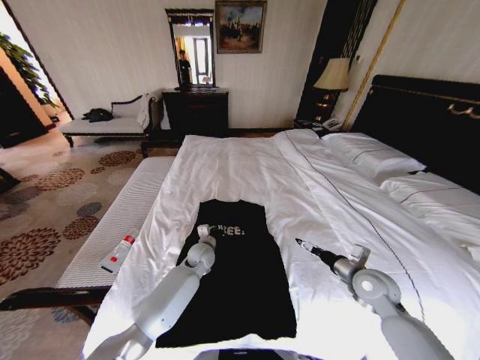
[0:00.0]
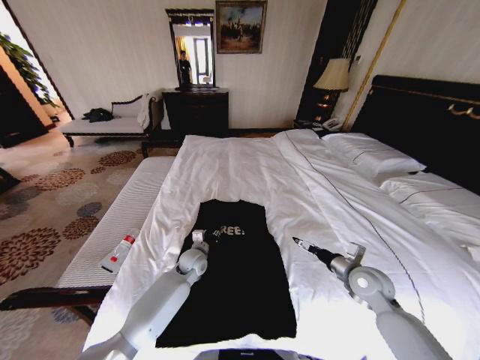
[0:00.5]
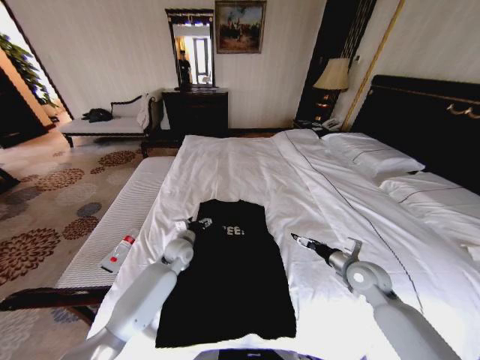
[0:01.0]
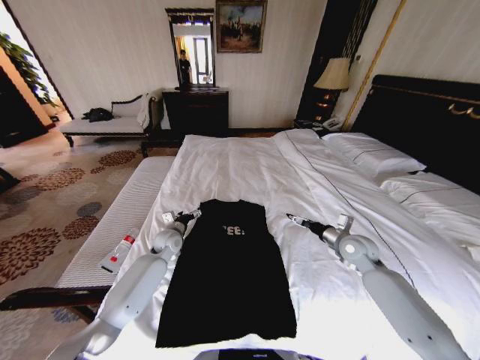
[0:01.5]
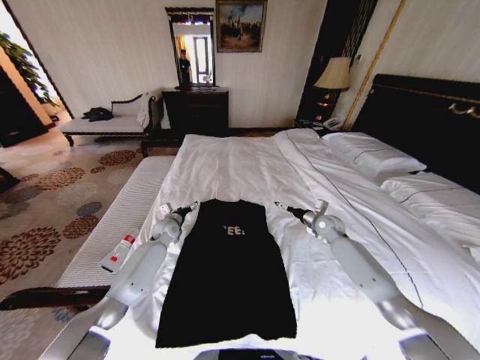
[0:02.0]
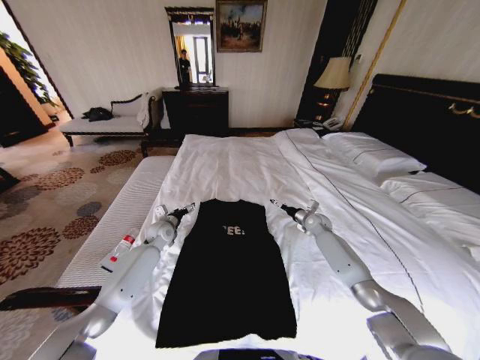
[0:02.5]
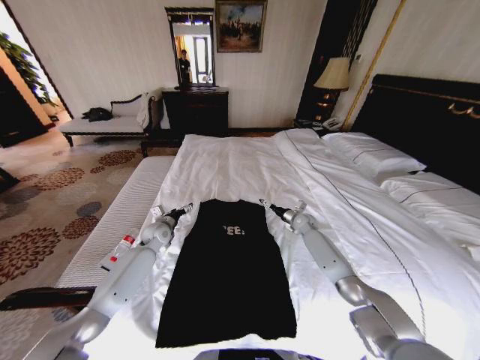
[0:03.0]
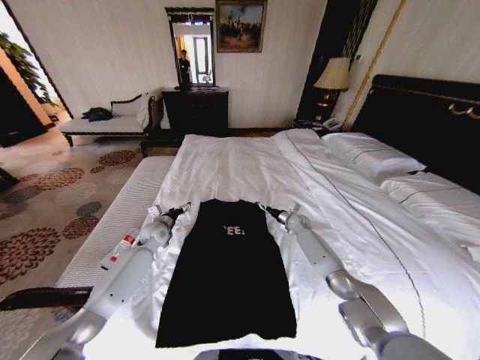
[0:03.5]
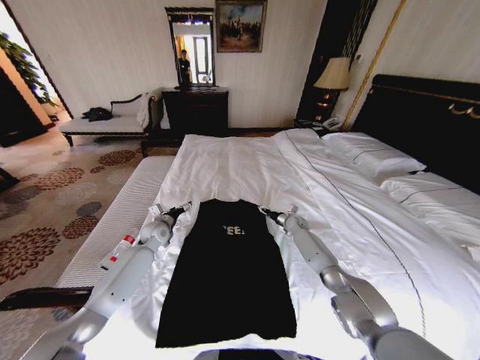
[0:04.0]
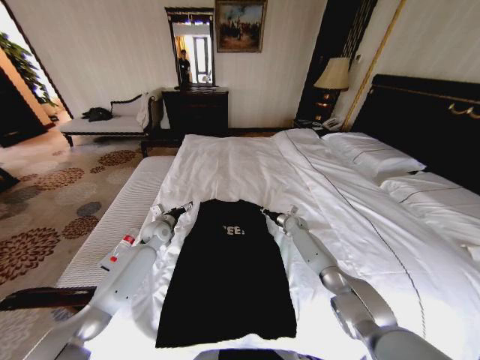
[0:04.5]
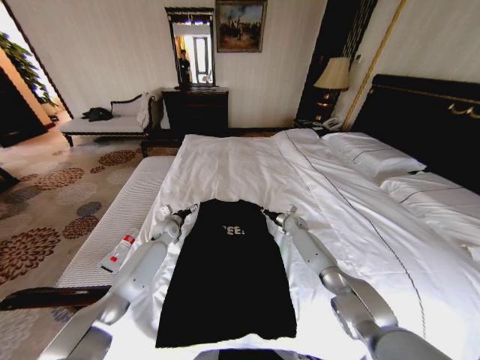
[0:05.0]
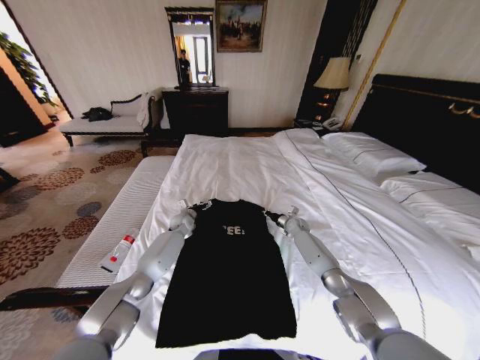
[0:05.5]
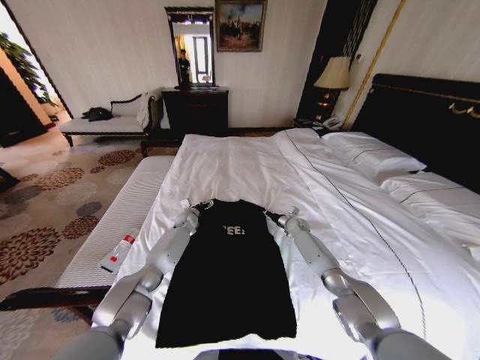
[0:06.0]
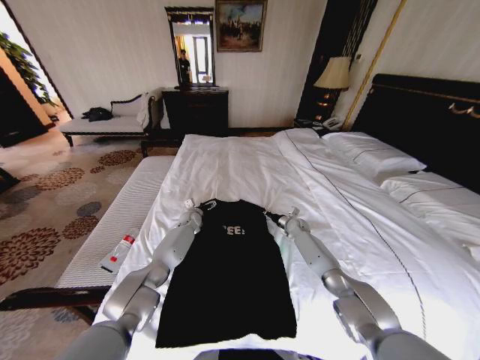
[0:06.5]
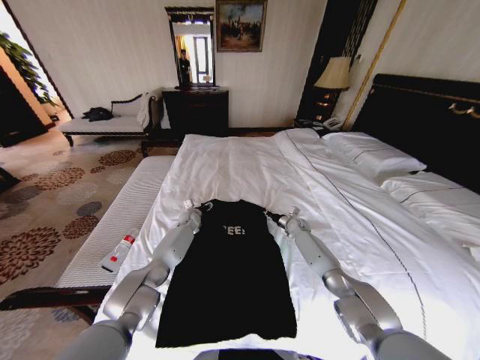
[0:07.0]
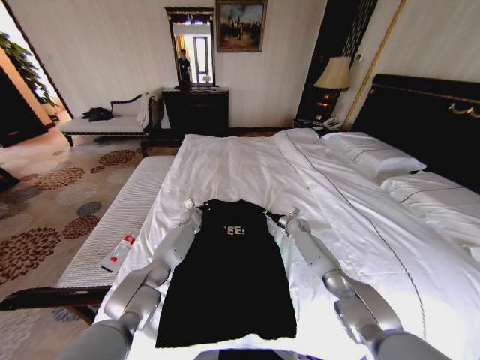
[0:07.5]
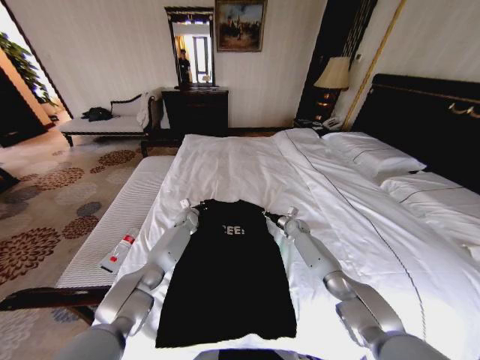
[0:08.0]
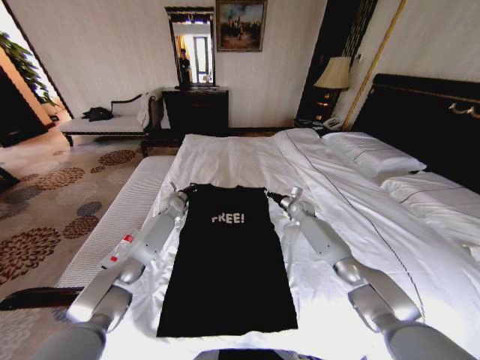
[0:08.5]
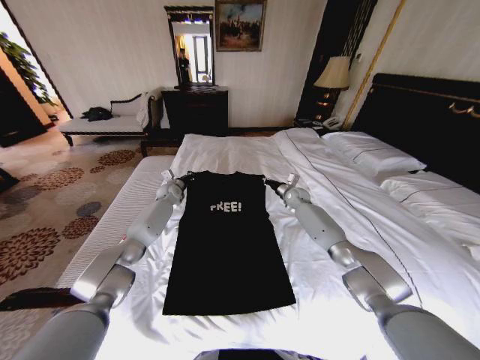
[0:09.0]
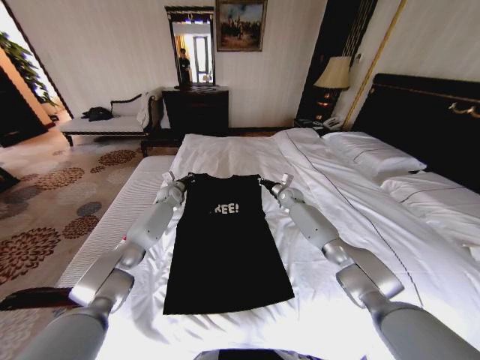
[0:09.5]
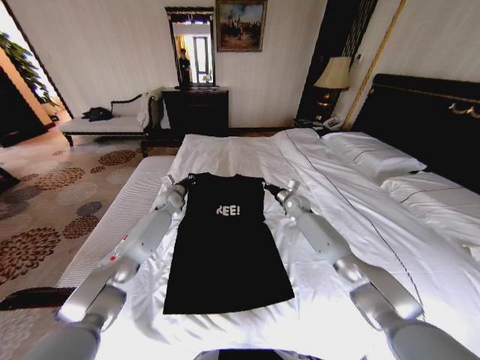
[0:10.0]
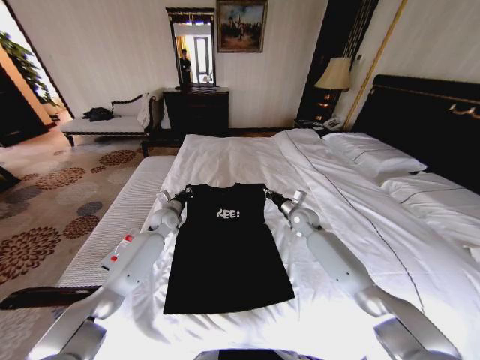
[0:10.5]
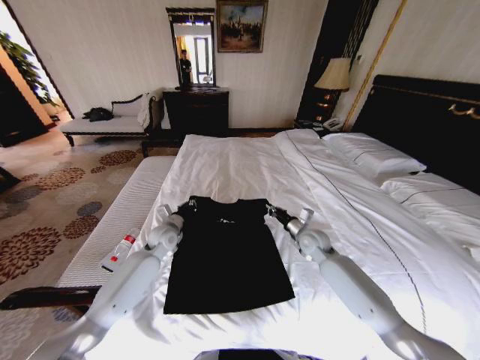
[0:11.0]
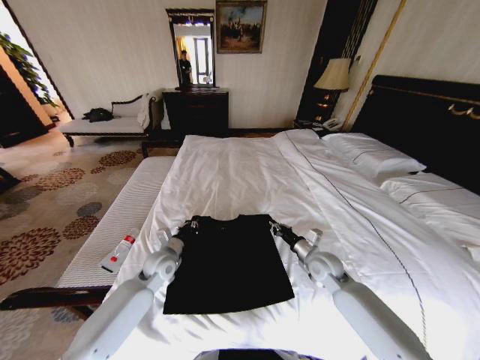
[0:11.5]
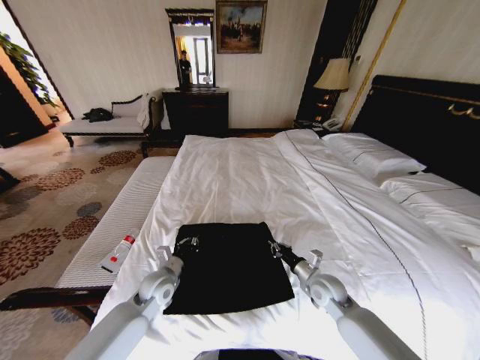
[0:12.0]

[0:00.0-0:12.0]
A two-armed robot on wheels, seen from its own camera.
Task of the whole recording: Fold the clothes on the bed.
0:00.0 to 0:02.0: The right gripper shifts some 20 cm forward. The left gripper is displaced to the left and forward by about 15 cm, and opens.
0:02.0 to 0:04.0: The right gripper shifts about 15 cm downward, forward and to the left.
0:04.0 to 0:06.0: The left gripper shifts some 15 cm forward, to the right and downward; the right gripper closes its fingers.
0:06.0 to 0:08.0: The left gripper closes its fingers.
0:08.0 to 0:10.0: The left gripper is displaced upward and to the left by some 10 cm, while the right gripper heads upward, covering some 10 cm.
0:10.0 to 0:12.0: Both grippers move backward, some 30 cm.

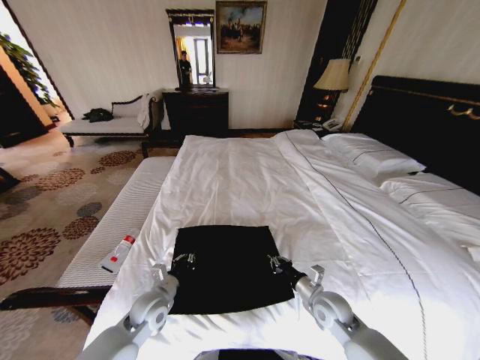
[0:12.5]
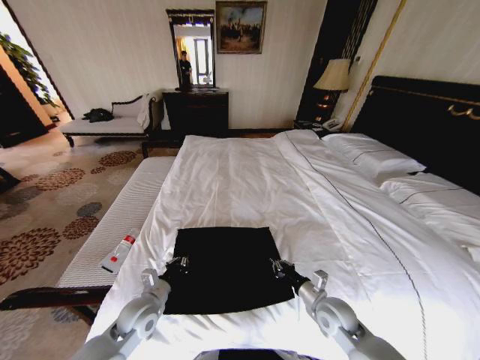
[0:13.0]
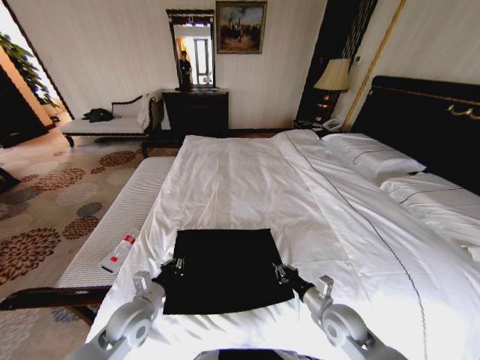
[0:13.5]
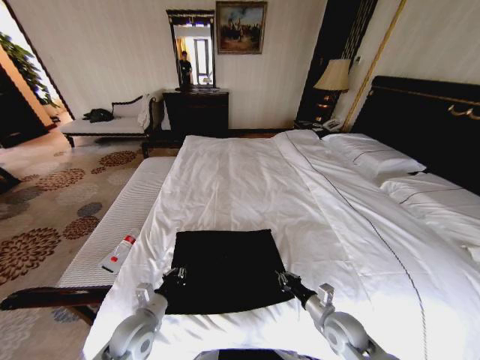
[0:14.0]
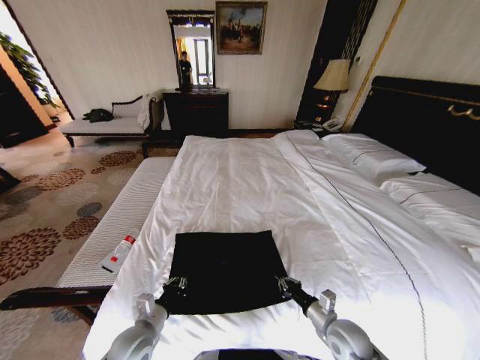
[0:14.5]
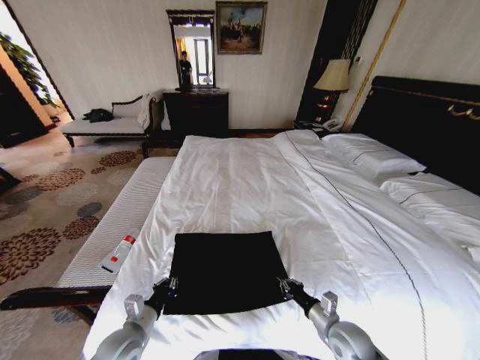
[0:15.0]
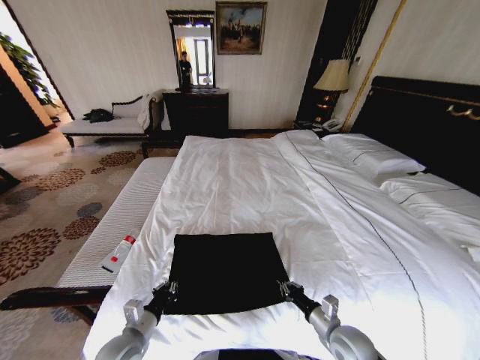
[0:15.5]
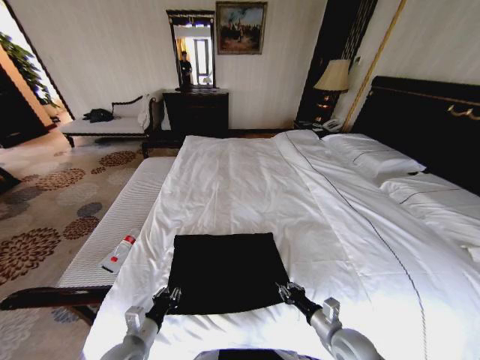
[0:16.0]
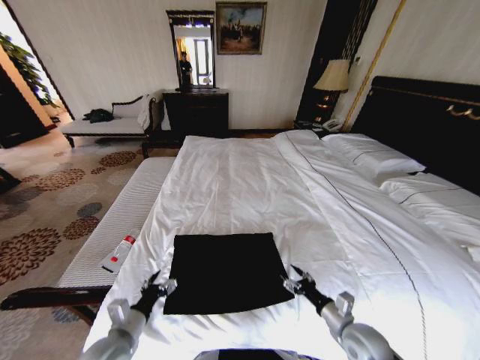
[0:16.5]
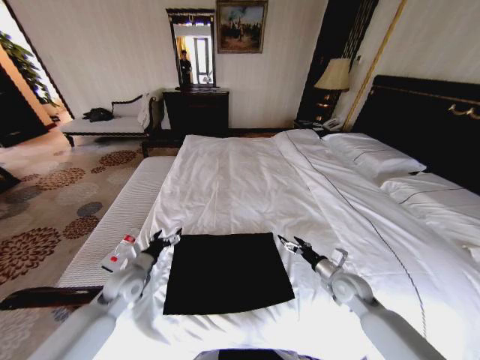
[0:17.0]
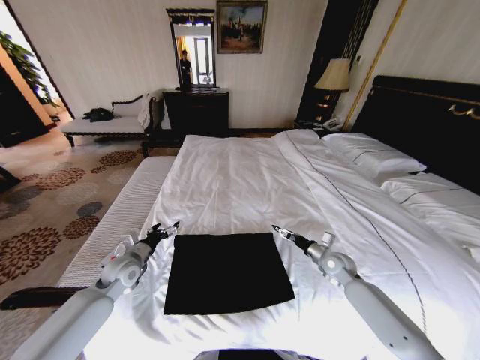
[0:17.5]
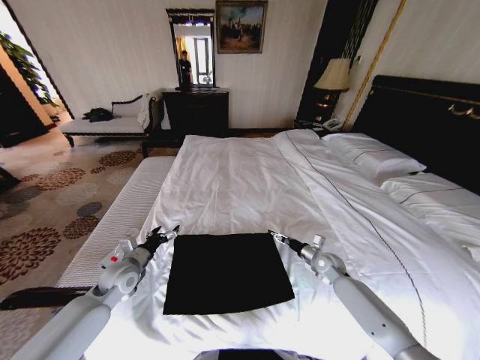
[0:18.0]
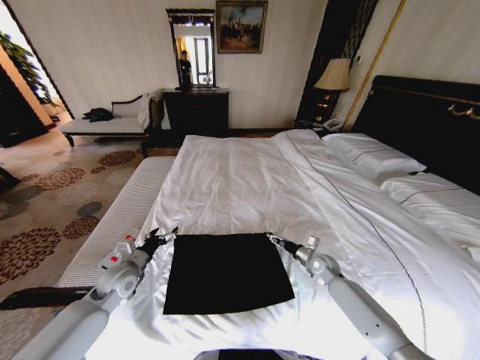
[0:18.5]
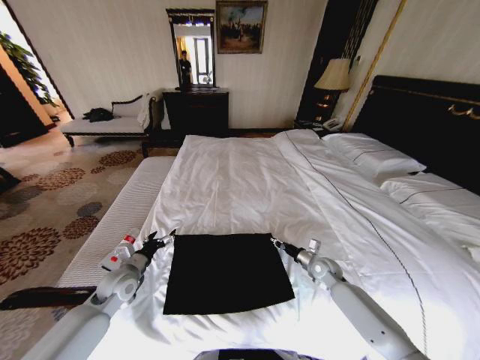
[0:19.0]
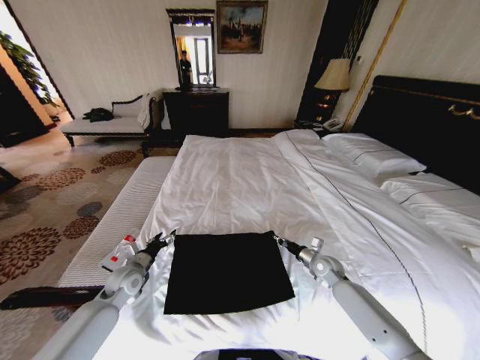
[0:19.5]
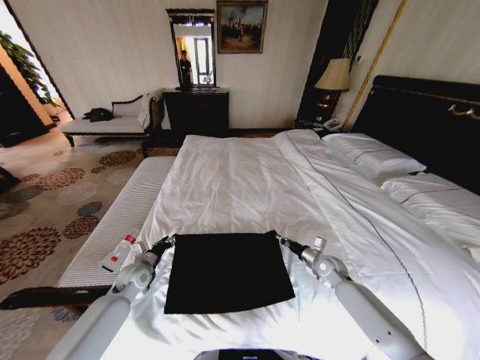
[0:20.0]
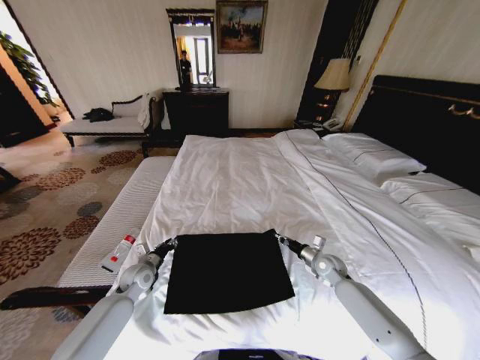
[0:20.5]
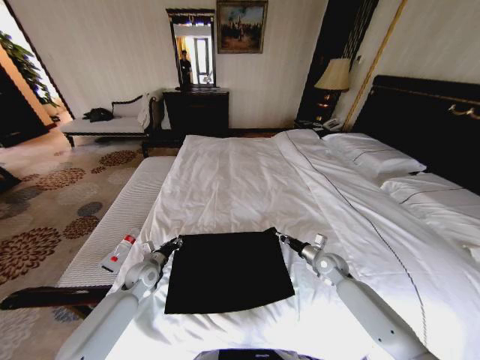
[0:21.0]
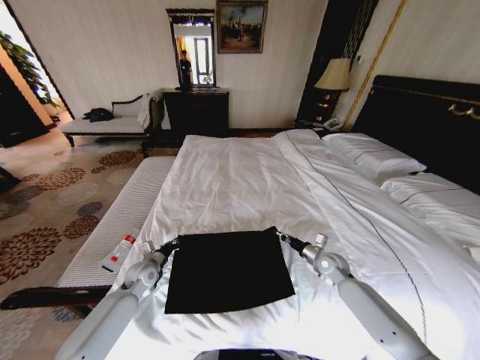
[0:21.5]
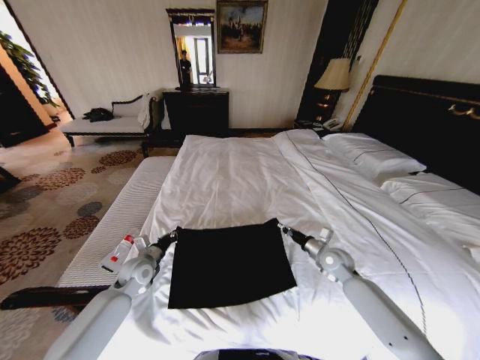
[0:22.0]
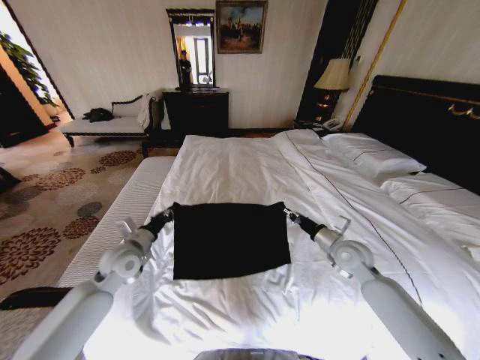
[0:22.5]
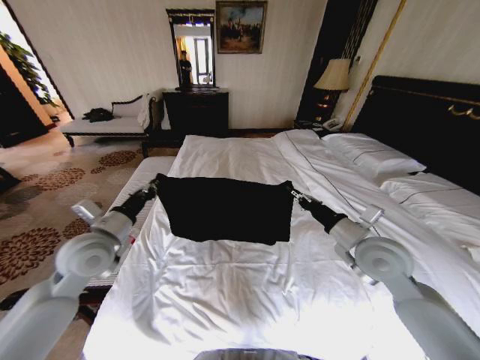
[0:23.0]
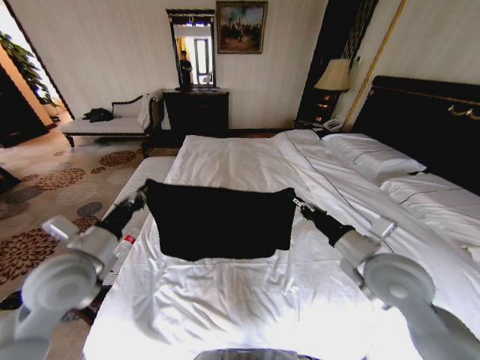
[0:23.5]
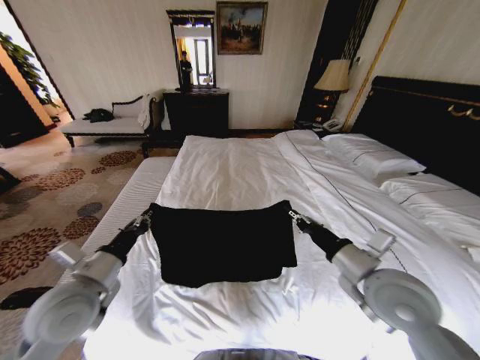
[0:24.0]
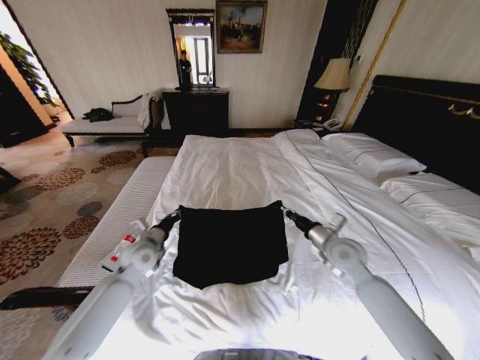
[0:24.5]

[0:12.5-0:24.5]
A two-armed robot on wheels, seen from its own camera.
Task of the whole recording: Fold the clothes on the bed.
0:12.5 to 0:14.5: The two grippers go some 5 cm backward.
0:14.5 to 0:16.5: The left gripper moves about 5 cm, and opens up, while the right gripper opens.
0:16.5 to 0:18.5: Both grippers move forward, roughly 20 cm.
0:18.5 to 0:20.5: The right gripper closes its fingers. The left gripper is displaced downward by approximately 5 cm, and closes up.
0:20.5 to 0:22.5: The two grippers go approximately 15 cm upward. The left gripper closes.
0:22.5 to 0:24.5: The right gripper reaches about 15 cm backward, then returns. The left gripper goes backward and returns, approximately 15 cm each way.

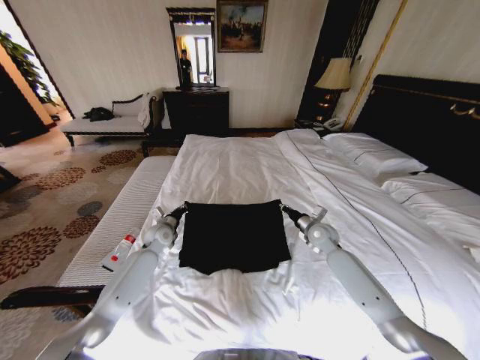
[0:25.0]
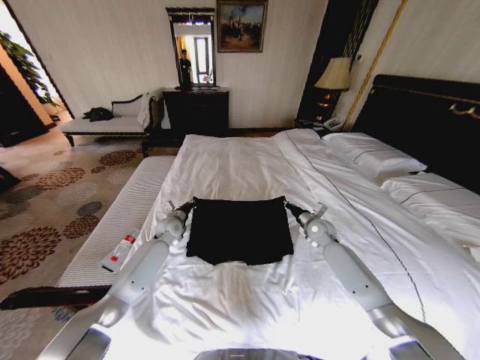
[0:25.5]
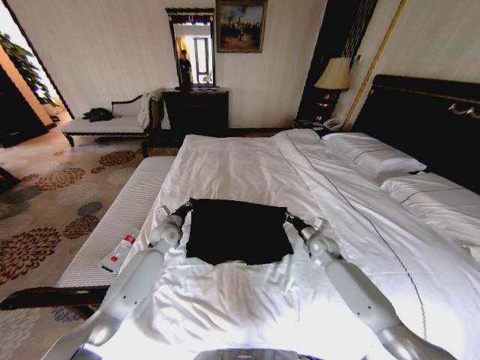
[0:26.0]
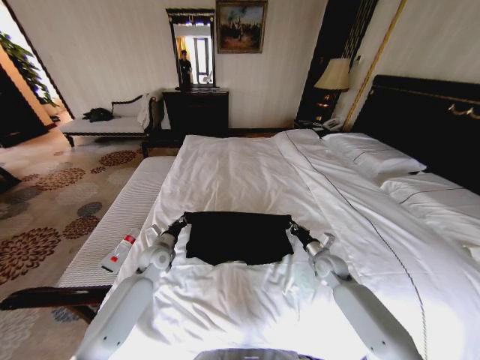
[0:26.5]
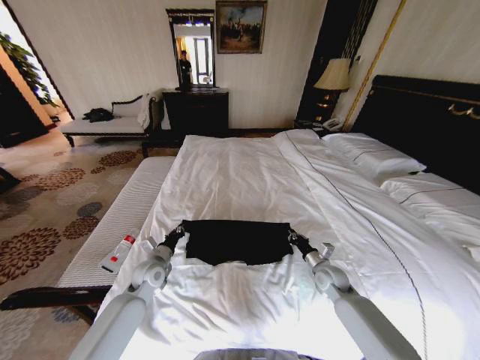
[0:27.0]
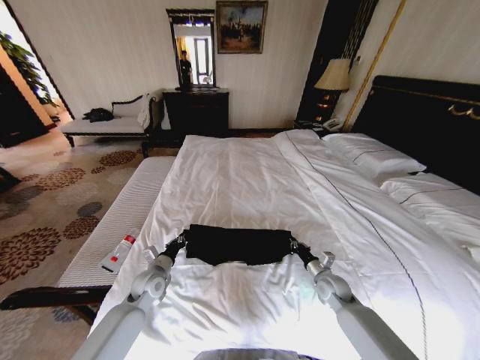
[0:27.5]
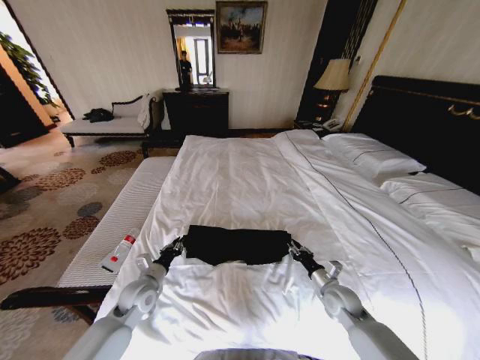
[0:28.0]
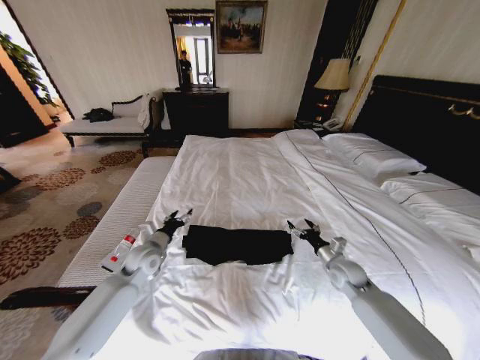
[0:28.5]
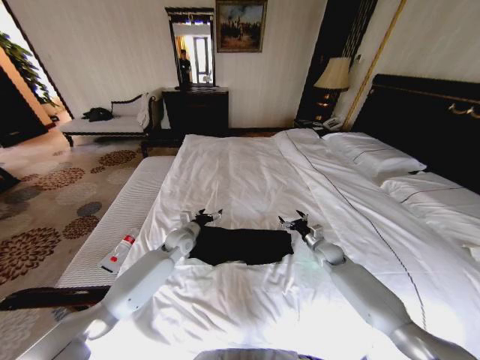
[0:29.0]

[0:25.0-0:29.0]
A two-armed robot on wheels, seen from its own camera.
Task of the whole recording: Fold the clothes on the bed.
0:25.0 to 0:27.0: The right gripper goes approximately 15 cm backward and downward; the left gripper travels backward by about 15 cm.
0:27.0 to 0:29.0: The left gripper shifts some 15 cm forward and to the right, and opens. The right gripper heads forward, covering approximately 10 cm, and opens.
